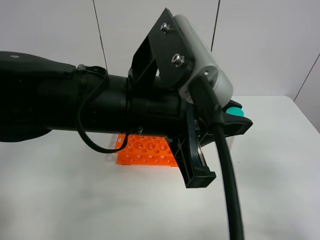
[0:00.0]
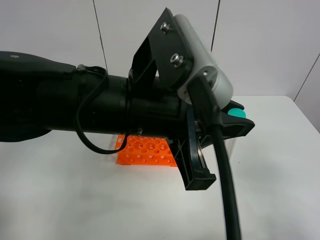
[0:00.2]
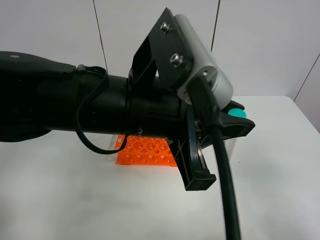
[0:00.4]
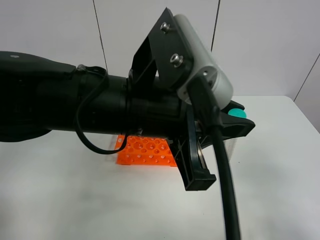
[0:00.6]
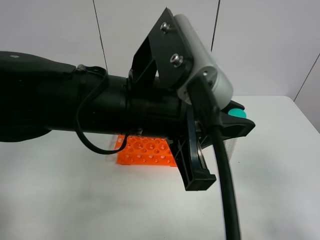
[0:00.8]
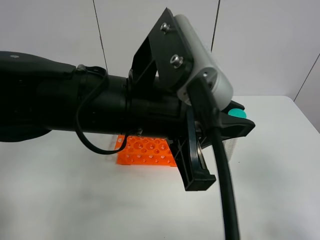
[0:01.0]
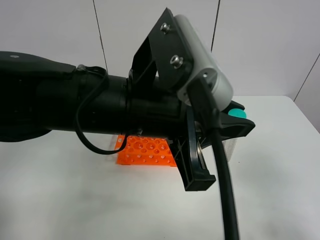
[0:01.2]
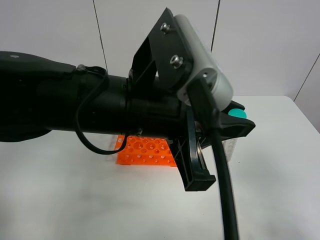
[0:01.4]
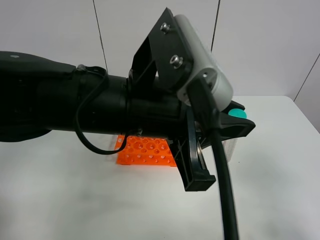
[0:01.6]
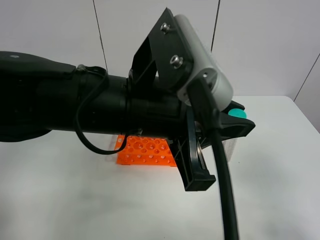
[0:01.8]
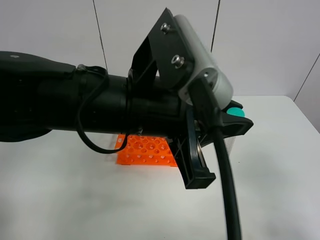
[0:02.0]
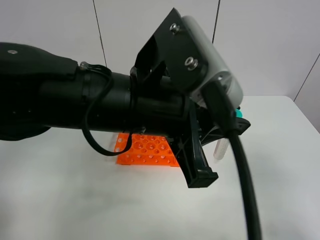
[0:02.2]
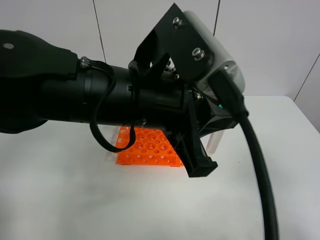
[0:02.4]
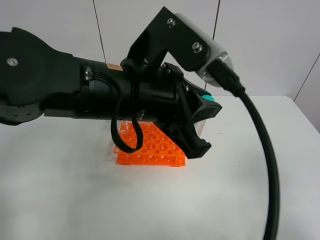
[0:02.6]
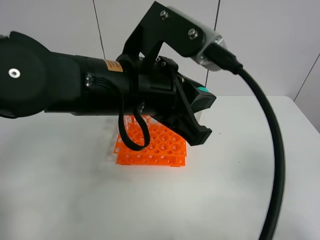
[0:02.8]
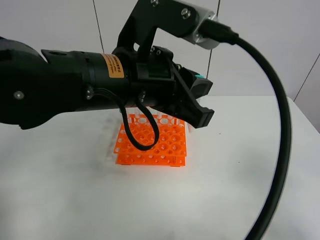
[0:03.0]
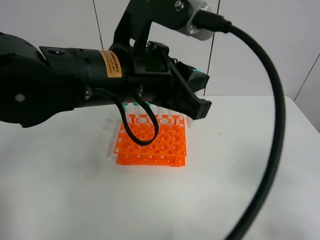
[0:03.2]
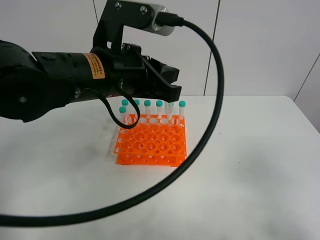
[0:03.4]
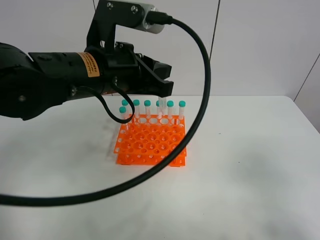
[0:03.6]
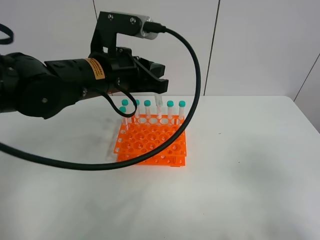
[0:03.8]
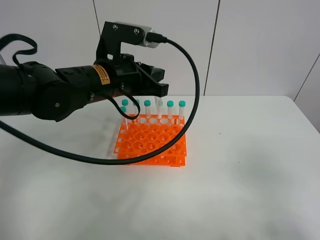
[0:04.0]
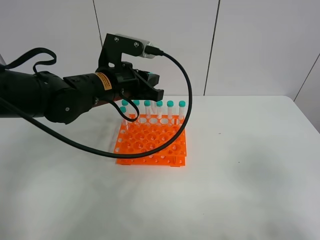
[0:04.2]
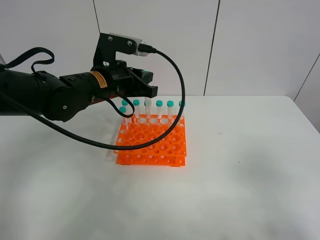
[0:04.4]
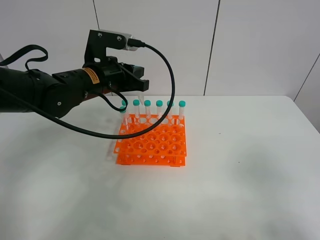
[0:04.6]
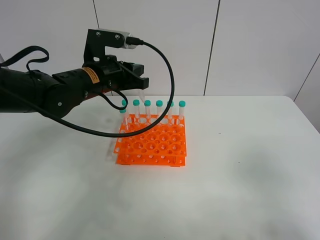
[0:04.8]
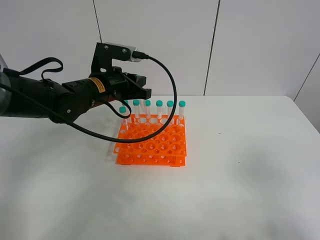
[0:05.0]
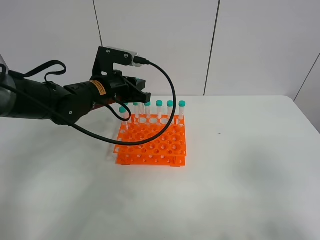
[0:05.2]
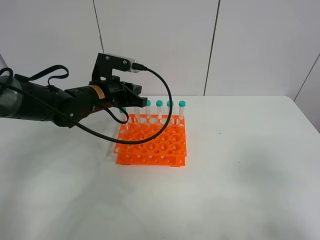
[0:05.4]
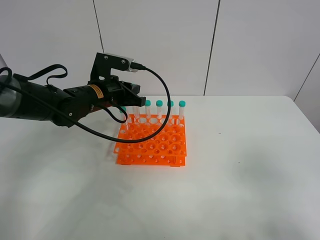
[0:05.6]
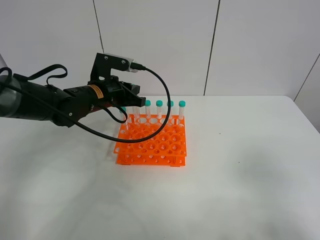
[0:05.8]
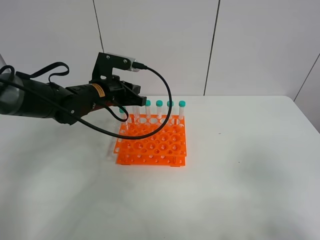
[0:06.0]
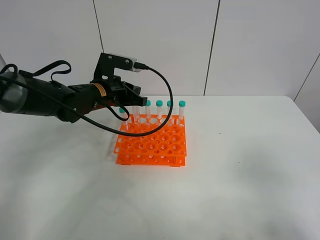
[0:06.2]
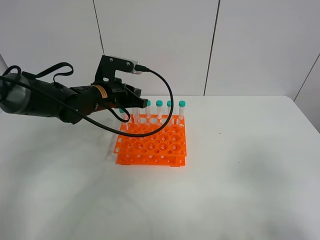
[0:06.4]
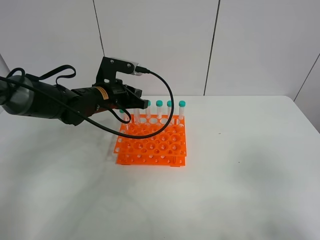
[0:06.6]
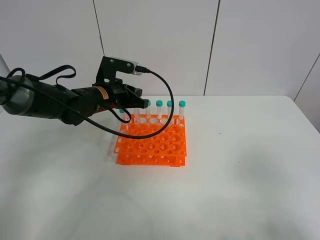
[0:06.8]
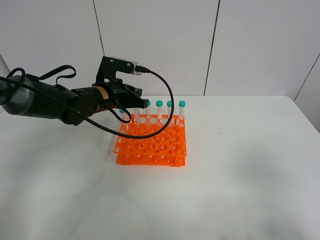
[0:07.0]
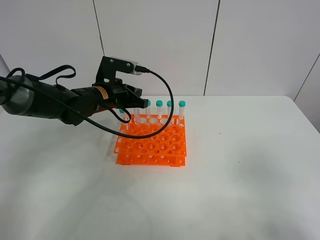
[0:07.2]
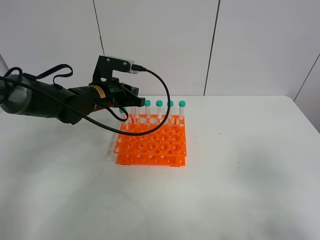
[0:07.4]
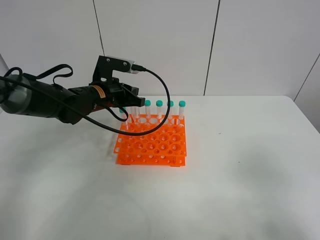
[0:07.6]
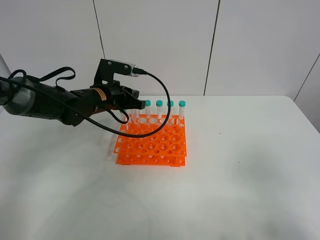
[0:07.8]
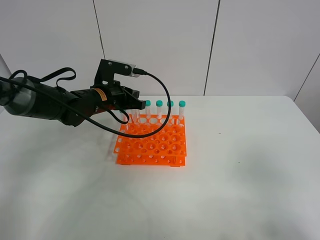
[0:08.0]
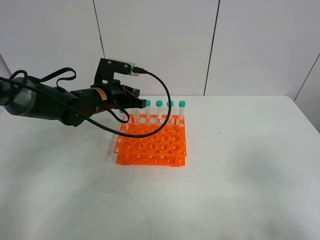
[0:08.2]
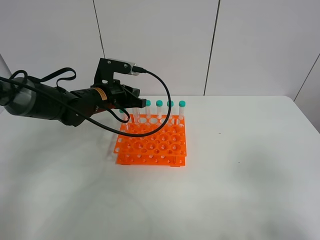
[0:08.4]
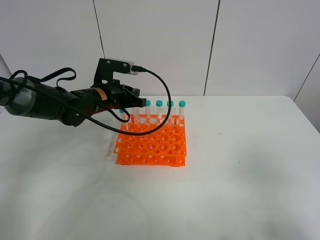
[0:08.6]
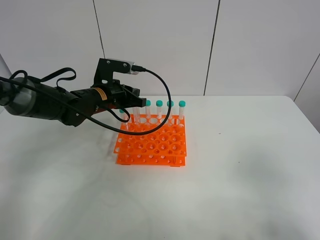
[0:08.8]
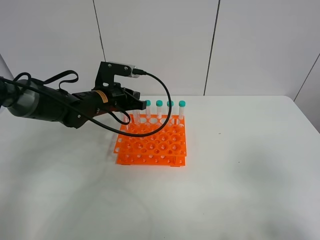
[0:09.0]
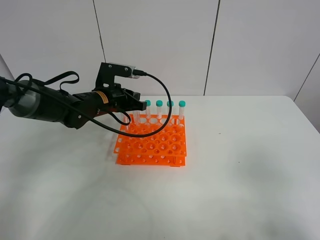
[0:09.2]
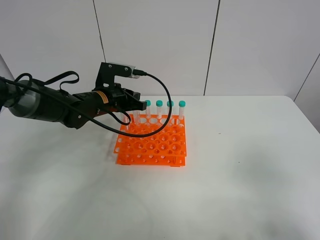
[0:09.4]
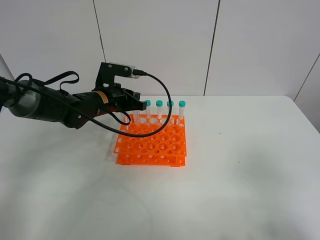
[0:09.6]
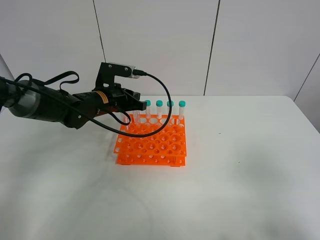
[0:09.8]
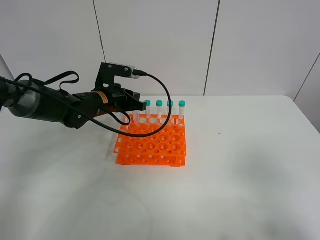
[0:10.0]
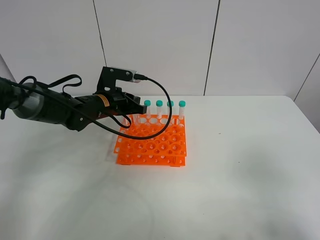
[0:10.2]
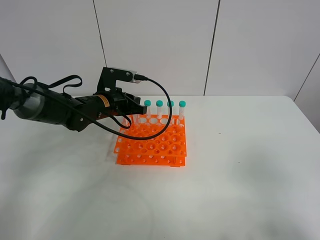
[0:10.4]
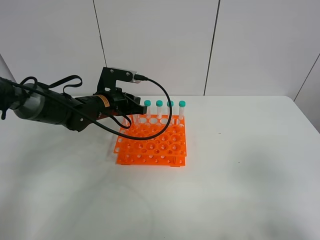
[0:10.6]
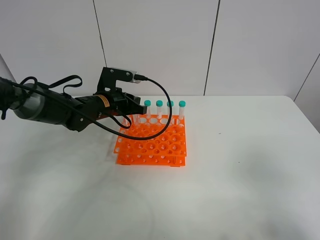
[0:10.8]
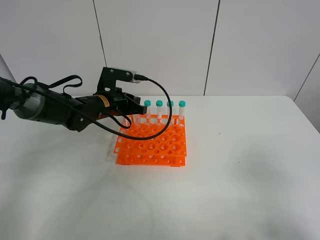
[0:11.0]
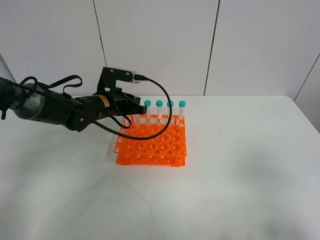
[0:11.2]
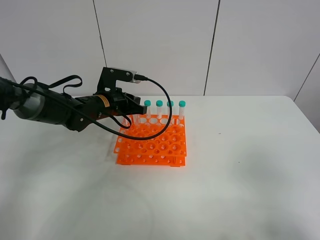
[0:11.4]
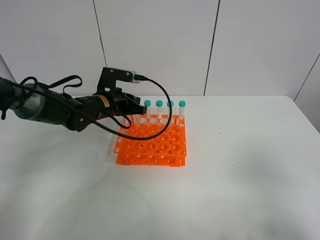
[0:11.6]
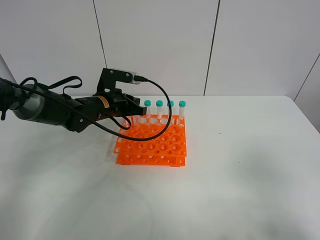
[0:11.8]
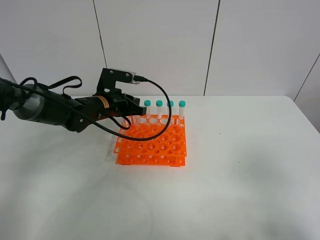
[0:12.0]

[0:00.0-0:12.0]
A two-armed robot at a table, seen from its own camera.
Task of the whole recording: Put the test tube on the table back onto the test tube rack.
0:03.0 to 0:04.4: The left gripper heads forward, downward and to the left, covering some 15 cm.
0:04.4 to 0:06.0: The left gripper ends up about 5 cm from where it was.
0:06.0 to 0:09.0: There are only small adjustments of the grippers.
0:09.0 to 0:12.0: The two grippers keep their place.

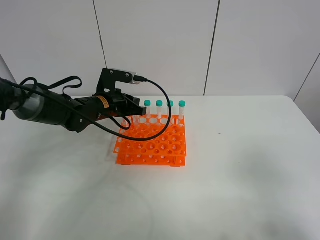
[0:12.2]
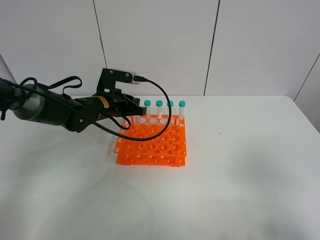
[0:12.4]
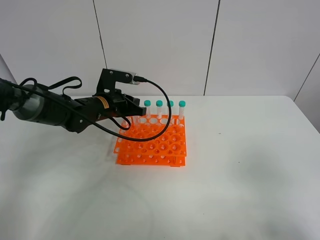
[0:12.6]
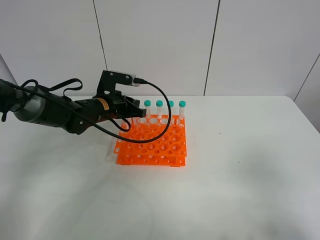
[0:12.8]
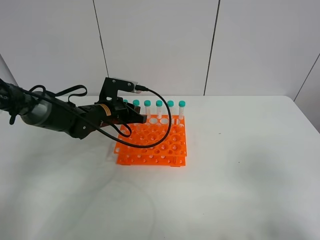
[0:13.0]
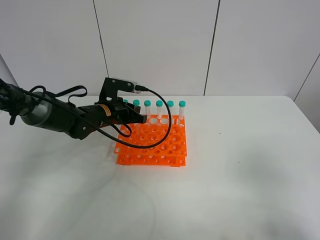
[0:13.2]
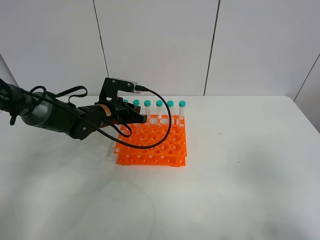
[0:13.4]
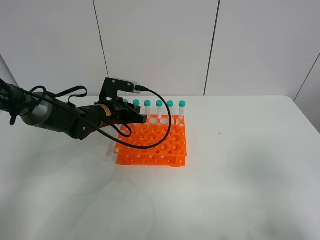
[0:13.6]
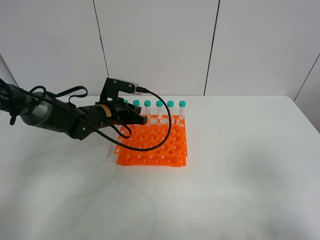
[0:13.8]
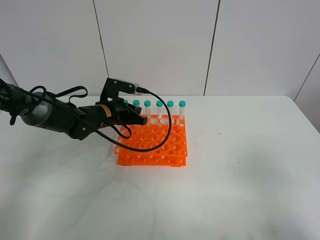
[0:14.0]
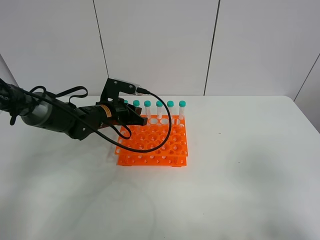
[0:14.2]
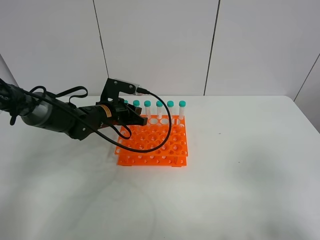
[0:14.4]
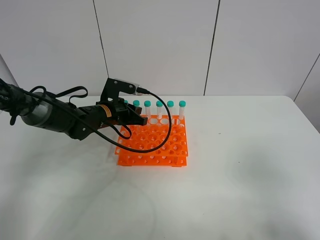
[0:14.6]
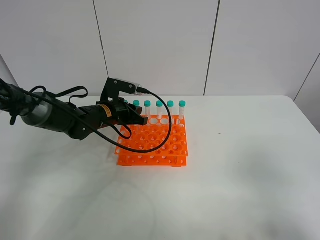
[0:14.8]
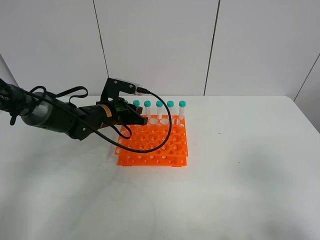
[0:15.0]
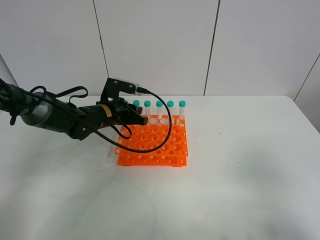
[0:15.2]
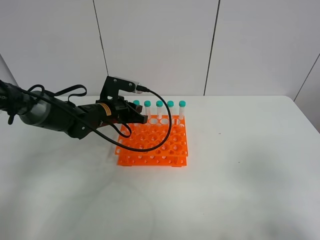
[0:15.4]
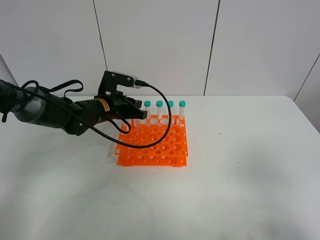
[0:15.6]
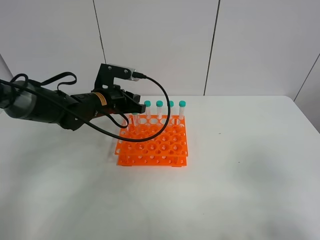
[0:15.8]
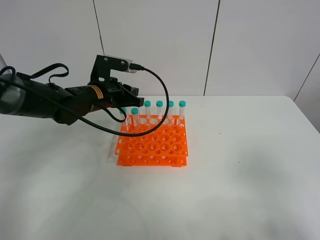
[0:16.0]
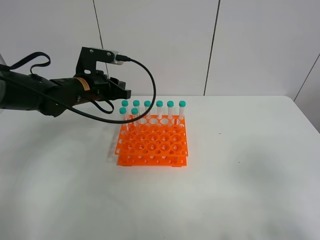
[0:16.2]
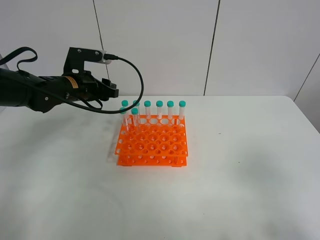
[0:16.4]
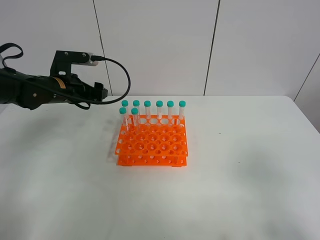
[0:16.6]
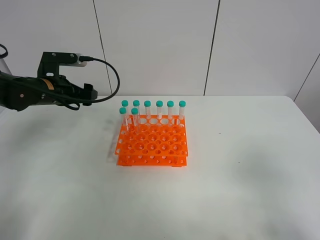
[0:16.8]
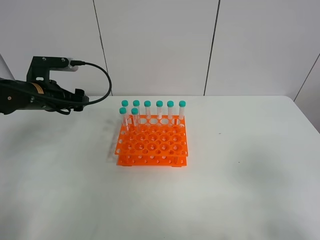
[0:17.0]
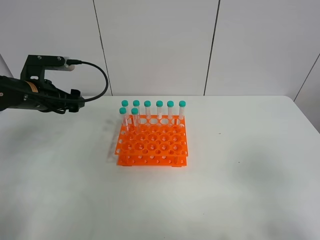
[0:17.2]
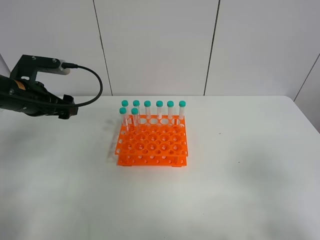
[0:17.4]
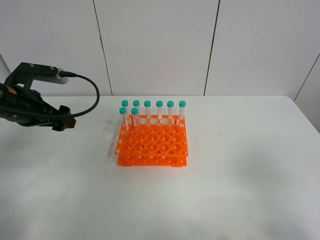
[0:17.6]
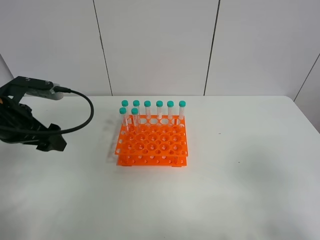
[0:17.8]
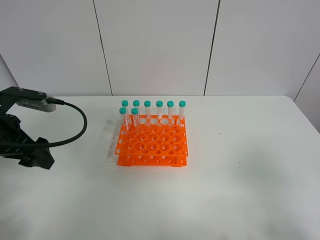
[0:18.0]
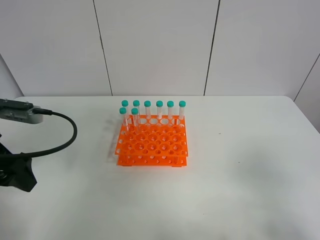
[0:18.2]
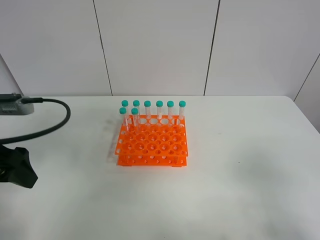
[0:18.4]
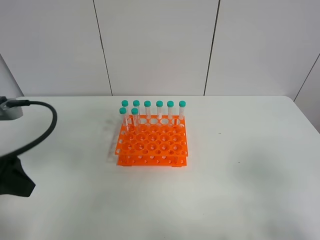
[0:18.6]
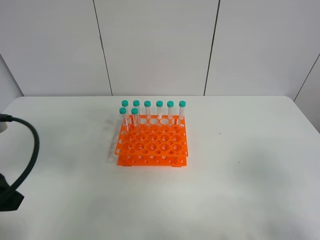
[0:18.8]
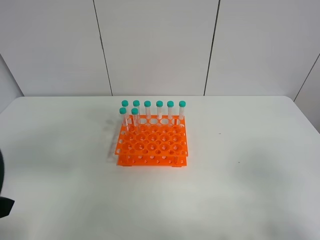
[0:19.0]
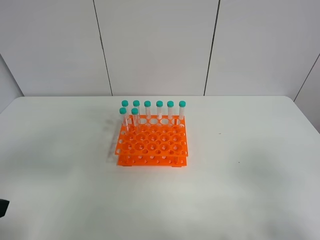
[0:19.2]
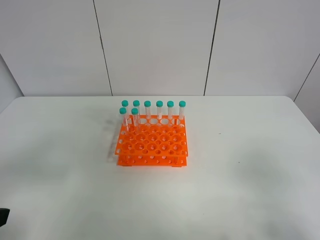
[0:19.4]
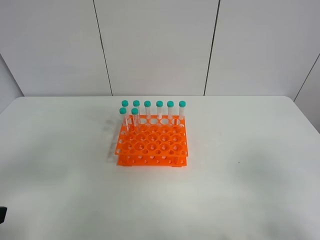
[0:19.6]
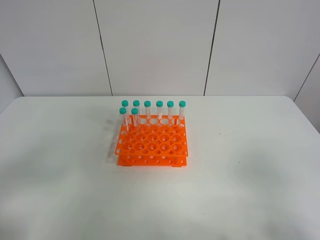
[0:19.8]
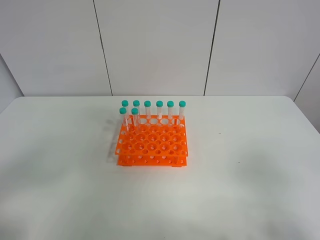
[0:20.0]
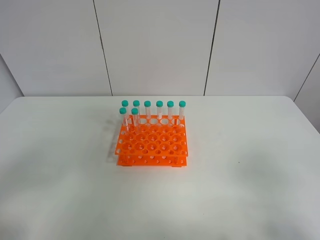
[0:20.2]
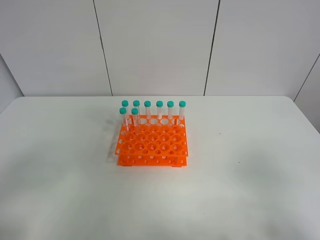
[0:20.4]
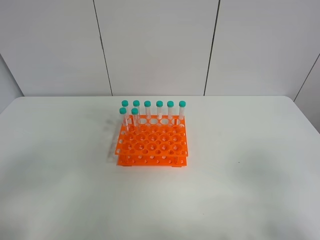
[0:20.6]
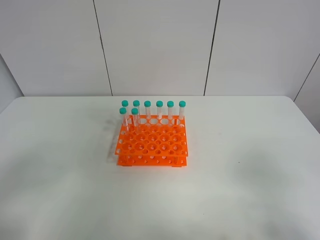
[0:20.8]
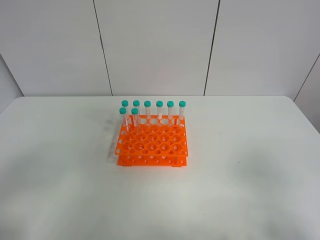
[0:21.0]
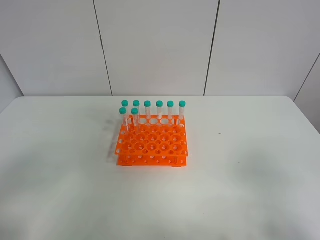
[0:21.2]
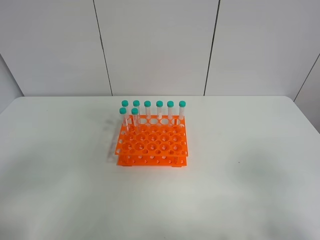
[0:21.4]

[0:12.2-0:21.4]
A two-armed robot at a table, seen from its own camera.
Task of the whole recording: Put the test tube on the table back onto the test tube rack.
Step, 0:12.2 to 0:15.2: Place the test tube on the test tube rack with the left gripper.
0:12.2 to 0:13.8: The grippers stay close to where they were, moving slightly.
0:13.8 to 0:15.2: Both grippers stay about where they are.
0:15.2 to 0:16.8: The left gripper travels to the left and upward by about 15 cm, and opens its fingers.
0:16.8 to 0:18.4: The left gripper heads backward and upward, covering some 20 cm.
0:18.4 to 0:19.8: The left gripper moves backward, about 15 cm.

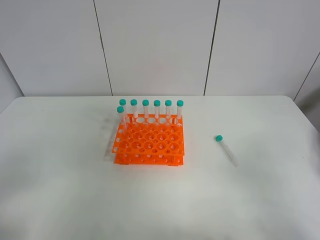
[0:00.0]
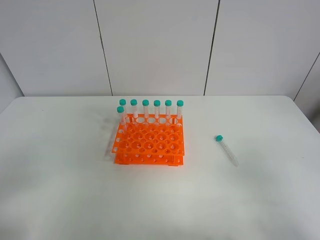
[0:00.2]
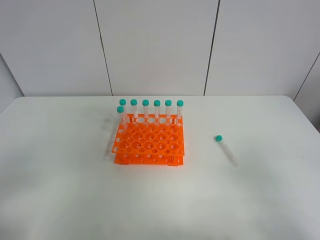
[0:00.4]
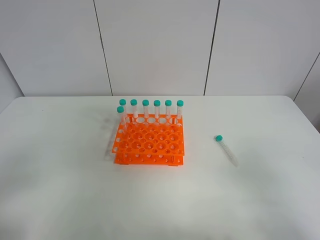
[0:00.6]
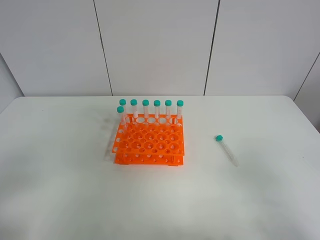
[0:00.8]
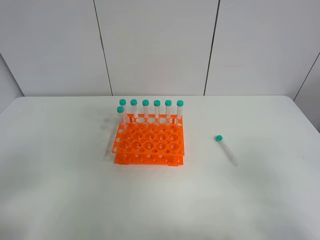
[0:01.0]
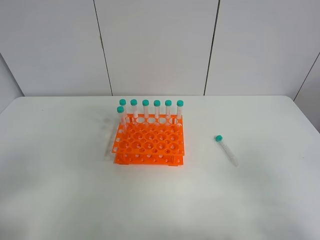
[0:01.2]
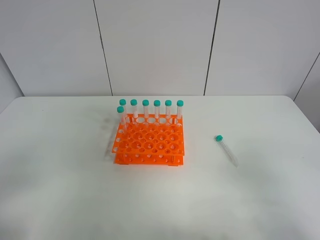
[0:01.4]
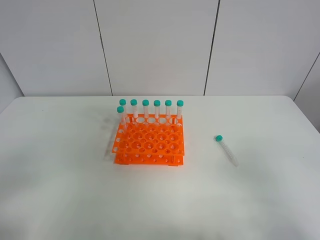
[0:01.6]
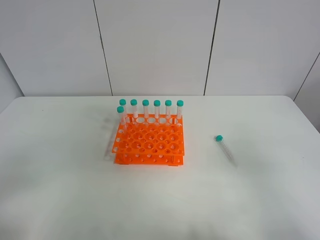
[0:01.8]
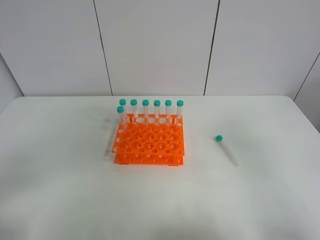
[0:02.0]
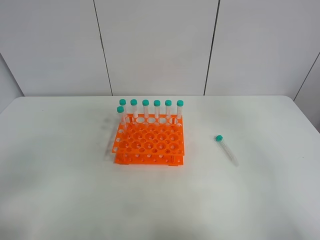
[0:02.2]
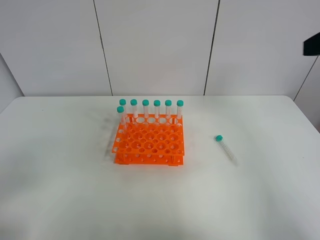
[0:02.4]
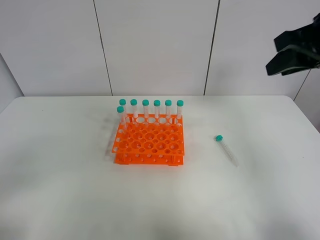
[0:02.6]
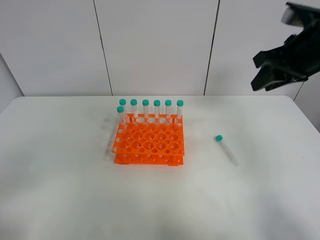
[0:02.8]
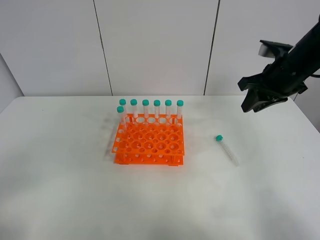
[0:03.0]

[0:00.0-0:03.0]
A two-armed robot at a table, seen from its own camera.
Task of the whole recording: Put the test tube on the table back onto the test tube rack.
0:00.0 to 0:01.6: Both grippers stay put.
0:01.6 to 0:03.0: The right gripper shifts approximately 35 cm forward.
